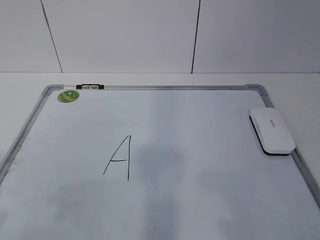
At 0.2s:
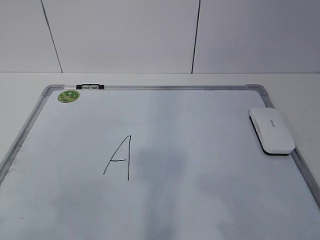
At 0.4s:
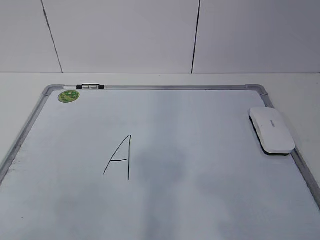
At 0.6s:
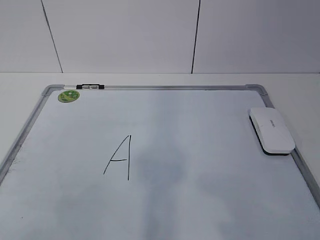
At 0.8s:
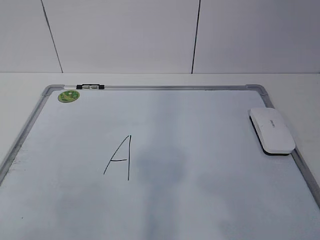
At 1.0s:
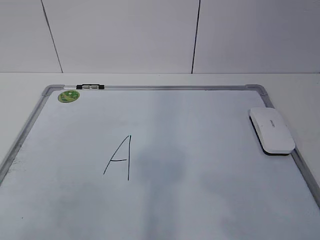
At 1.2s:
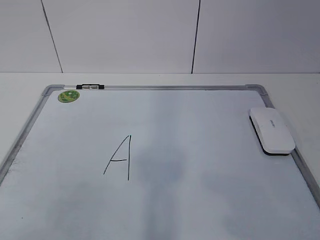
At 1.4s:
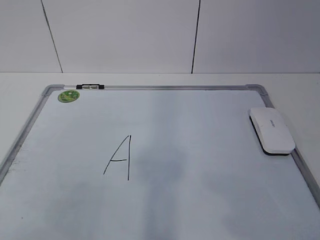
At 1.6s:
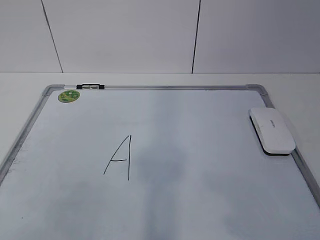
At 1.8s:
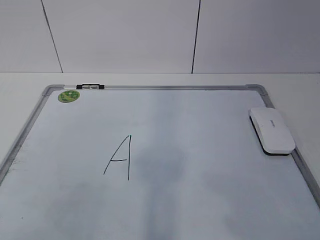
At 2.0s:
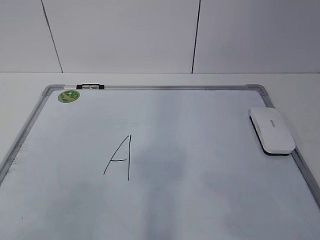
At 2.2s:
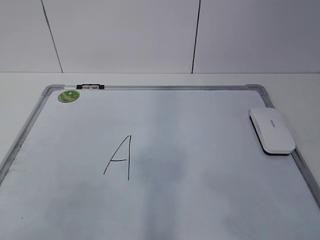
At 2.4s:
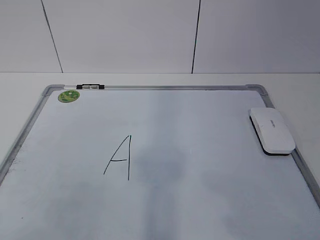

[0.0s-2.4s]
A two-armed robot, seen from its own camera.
Task of the whole recording: pick up the eraser on the blackboard and erase the letter "a".
1.2s to 2.4s: Both grippers stay put.

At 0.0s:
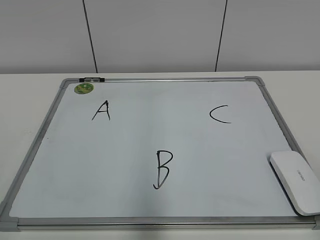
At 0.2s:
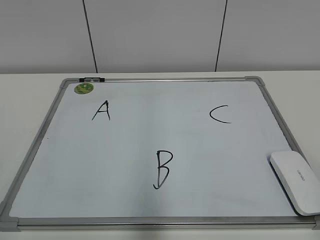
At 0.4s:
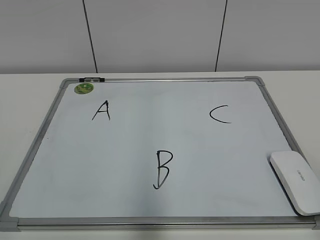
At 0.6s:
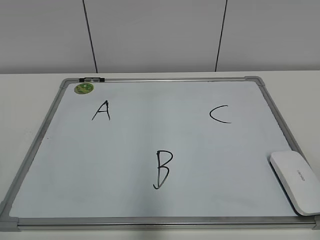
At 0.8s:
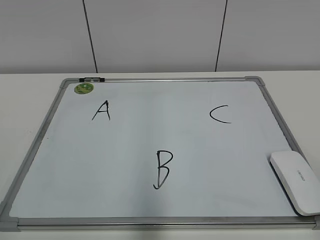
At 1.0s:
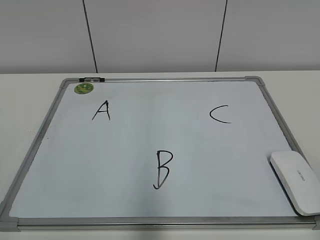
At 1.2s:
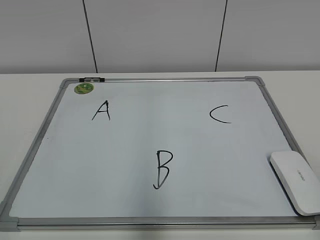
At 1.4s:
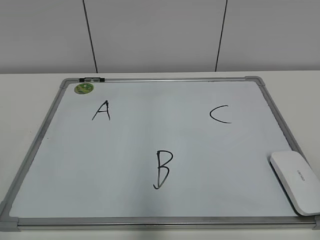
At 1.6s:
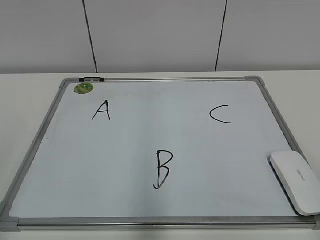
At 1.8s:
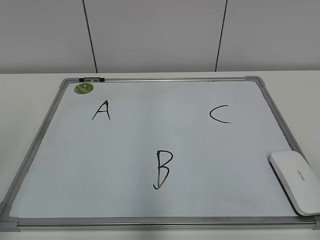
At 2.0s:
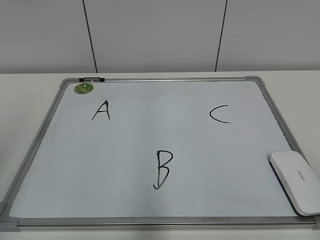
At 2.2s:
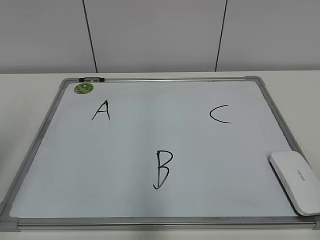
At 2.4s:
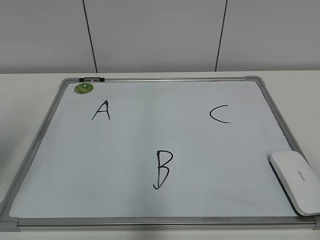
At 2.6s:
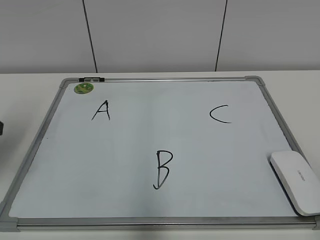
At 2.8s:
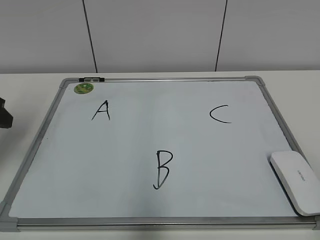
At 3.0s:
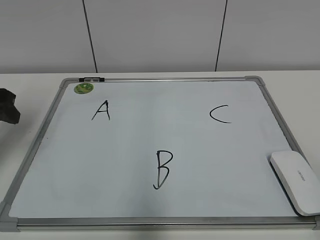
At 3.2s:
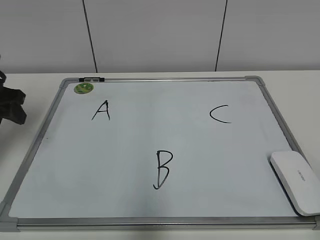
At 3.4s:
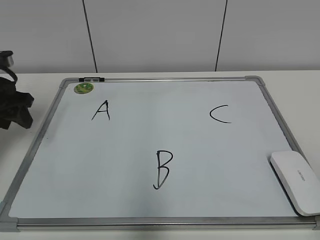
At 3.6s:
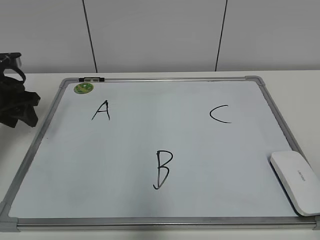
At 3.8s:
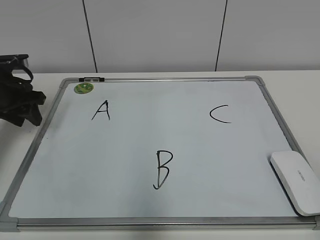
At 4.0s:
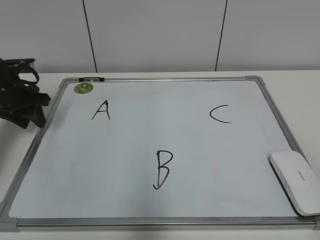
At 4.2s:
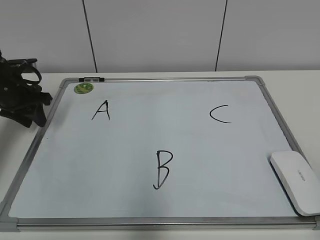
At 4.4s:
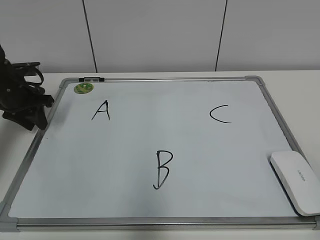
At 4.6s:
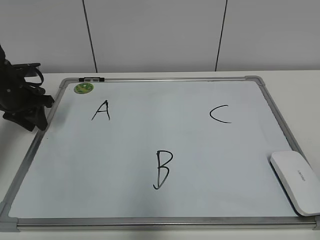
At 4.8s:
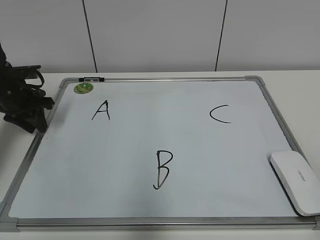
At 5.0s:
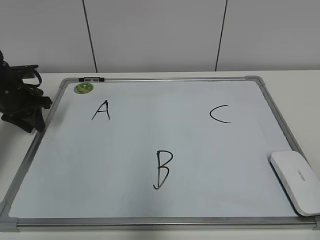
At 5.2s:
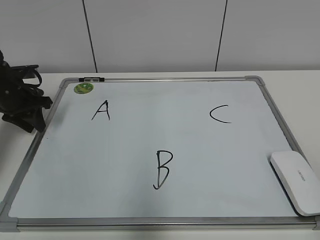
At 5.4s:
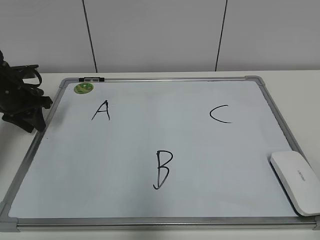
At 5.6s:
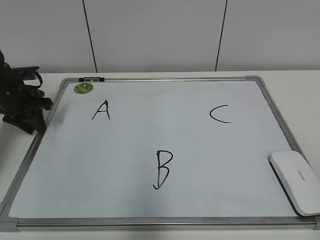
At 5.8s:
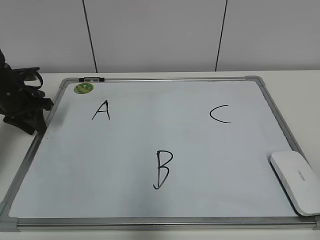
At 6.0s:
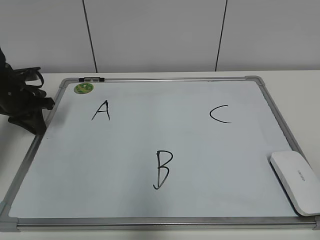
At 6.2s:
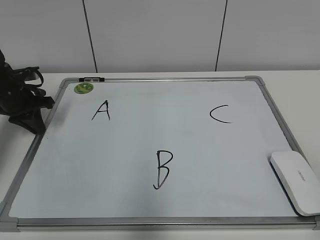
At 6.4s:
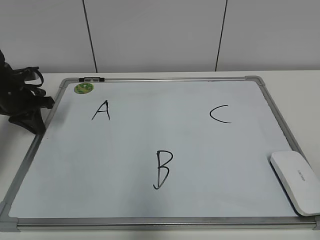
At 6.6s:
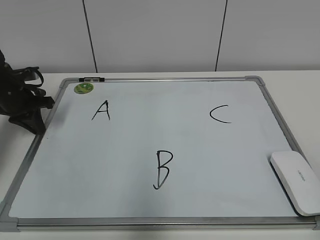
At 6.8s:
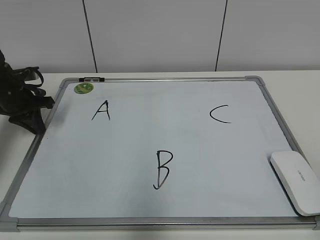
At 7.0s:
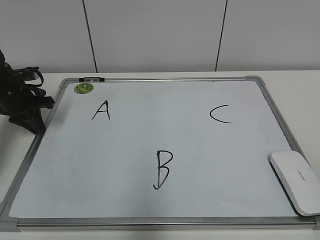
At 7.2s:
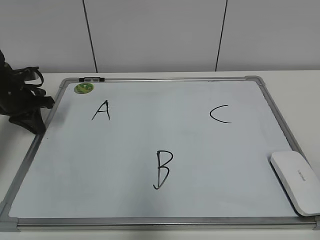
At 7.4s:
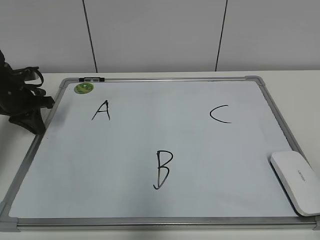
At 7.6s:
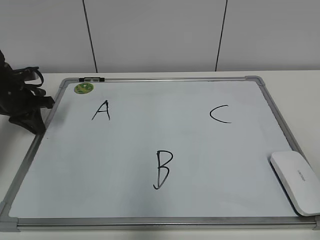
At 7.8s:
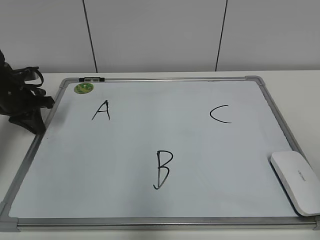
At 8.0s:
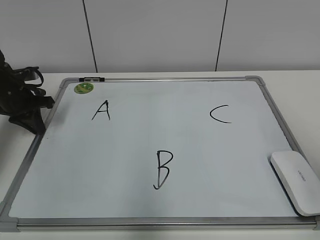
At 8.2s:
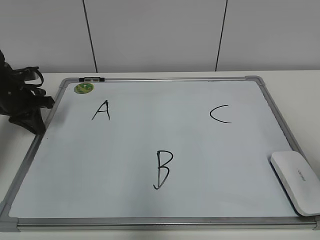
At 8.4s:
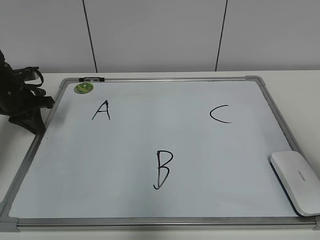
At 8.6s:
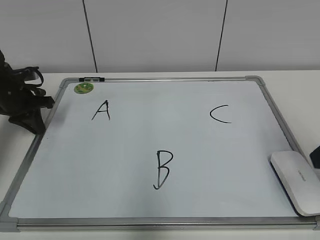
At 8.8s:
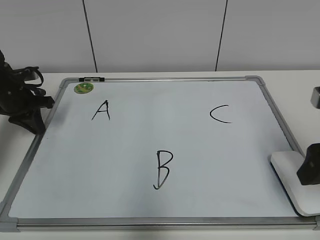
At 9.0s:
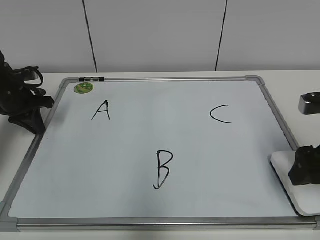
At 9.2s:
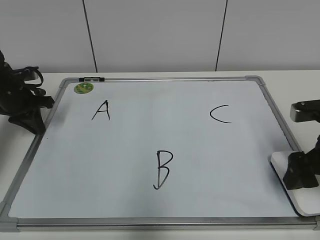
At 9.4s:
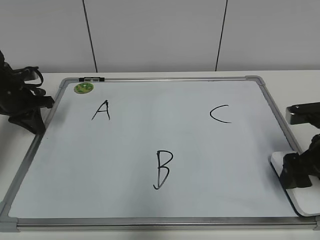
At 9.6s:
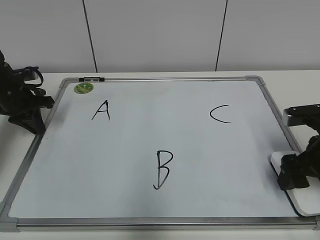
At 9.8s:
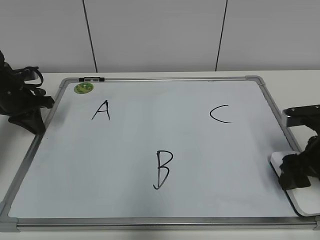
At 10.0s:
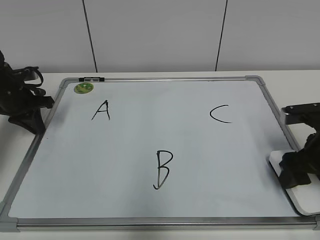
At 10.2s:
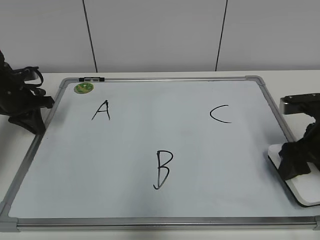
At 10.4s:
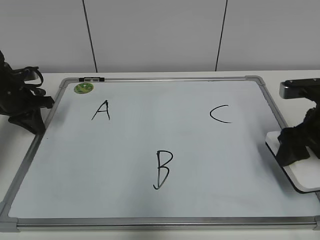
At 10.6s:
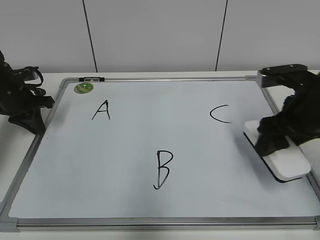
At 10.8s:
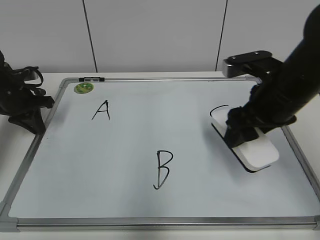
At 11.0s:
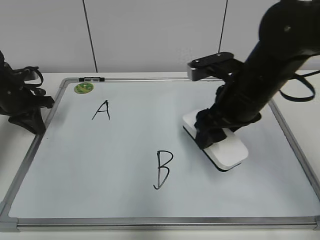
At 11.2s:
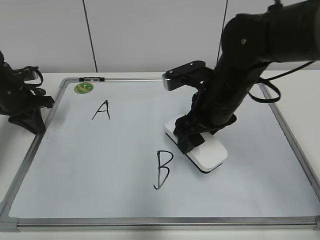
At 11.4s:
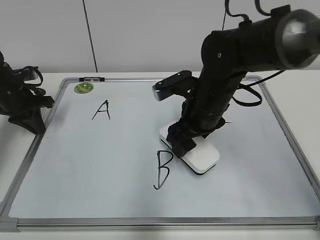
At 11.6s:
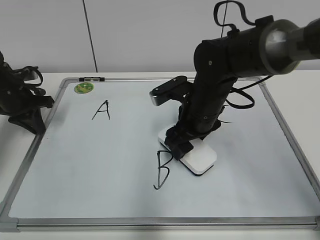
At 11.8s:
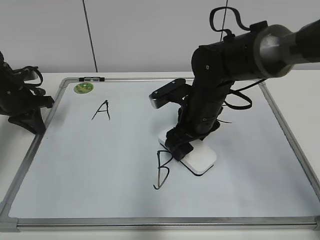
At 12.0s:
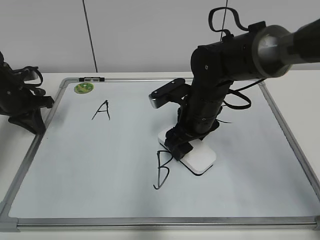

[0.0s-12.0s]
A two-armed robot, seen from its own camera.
Task of the whole recording: pick up the eraser on the blackboard and erase the letter "B".
Step, 0.0s to 6.0s: Hold the drawing board steady with your left hand.
Step, 6.2s to 9.8s: Grab the eraser with your right hand.
1.6s to 3.0s: The left gripper is displaced forward by some 30 cm.
3.0s to 4.4s: The left gripper is displaced forward and downward by some 15 cm, and closes its fingers.
4.4s to 6.0s: There are only small adjustments of the grippers.
6.0s to 7.6s: Both grippers stay about where they are.
7.6s to 9.0s: The right gripper moves forward, approximately 25 cm, and opens.
9.0s to 10.4s: The right gripper is displaced forward by some 5 cm, and closes its fingers.
10.4s to 12.0s: The right gripper moves to the left, some 20 cm.

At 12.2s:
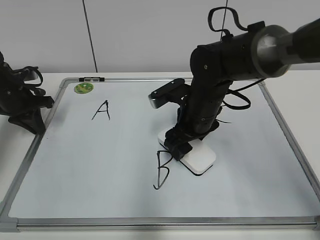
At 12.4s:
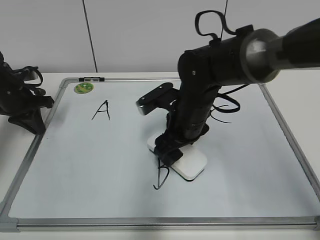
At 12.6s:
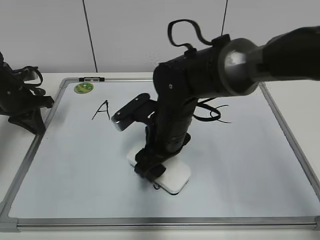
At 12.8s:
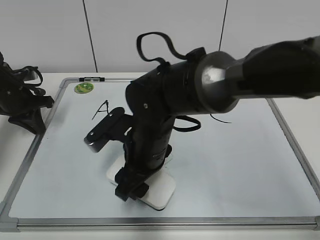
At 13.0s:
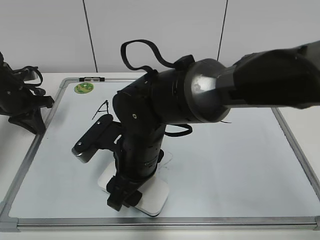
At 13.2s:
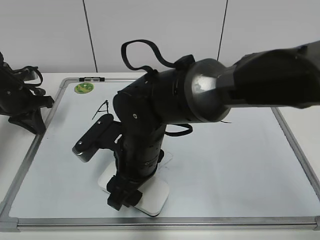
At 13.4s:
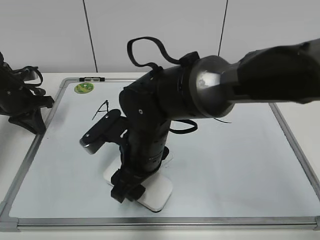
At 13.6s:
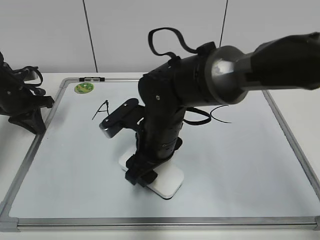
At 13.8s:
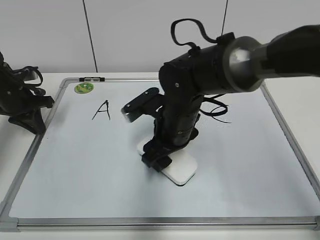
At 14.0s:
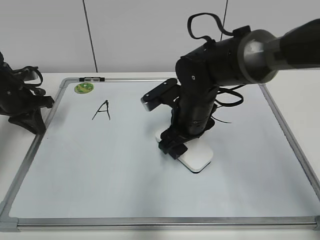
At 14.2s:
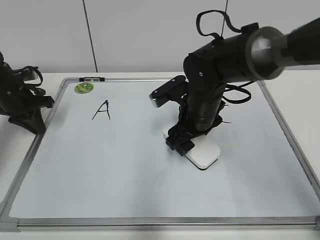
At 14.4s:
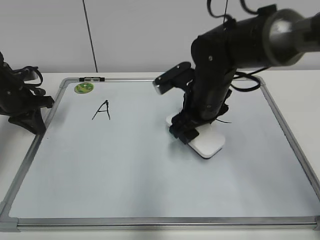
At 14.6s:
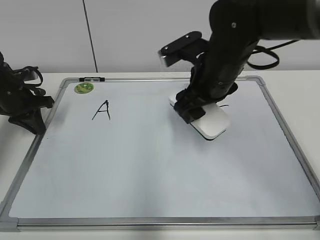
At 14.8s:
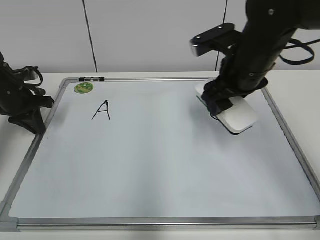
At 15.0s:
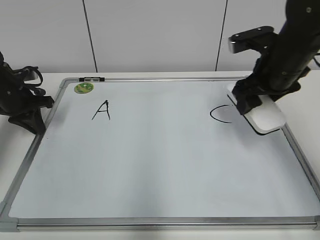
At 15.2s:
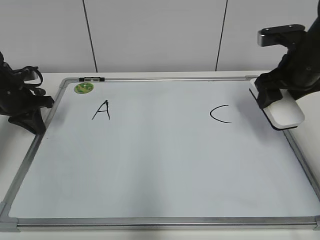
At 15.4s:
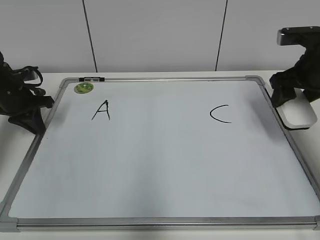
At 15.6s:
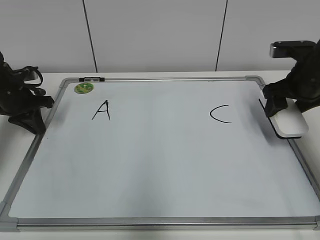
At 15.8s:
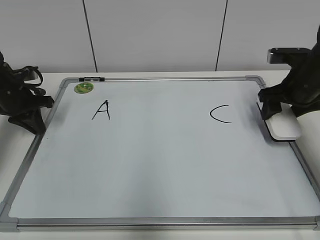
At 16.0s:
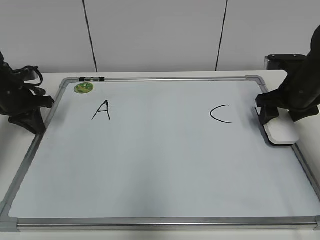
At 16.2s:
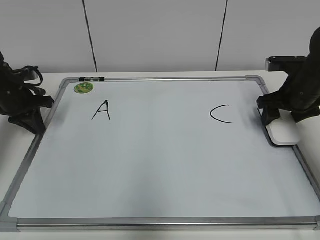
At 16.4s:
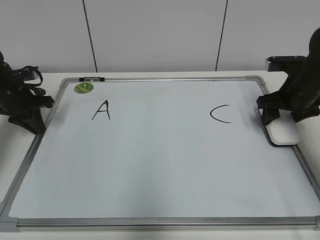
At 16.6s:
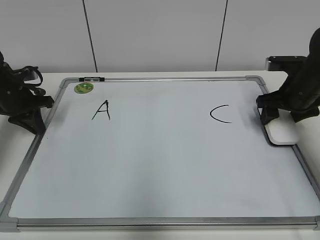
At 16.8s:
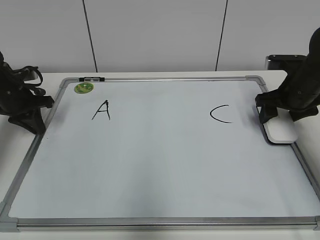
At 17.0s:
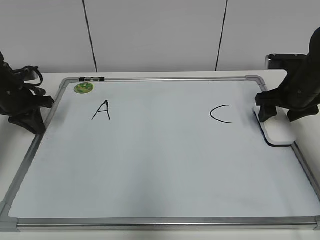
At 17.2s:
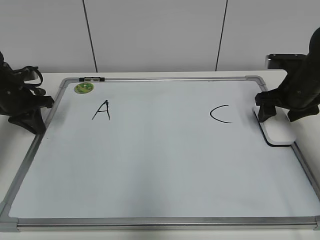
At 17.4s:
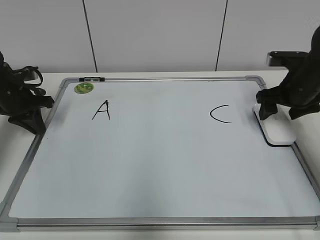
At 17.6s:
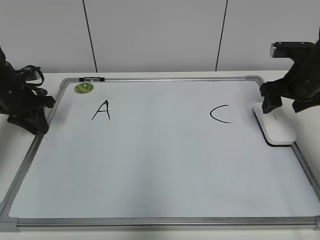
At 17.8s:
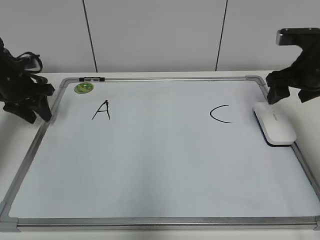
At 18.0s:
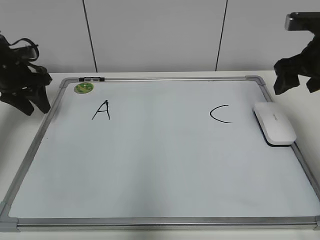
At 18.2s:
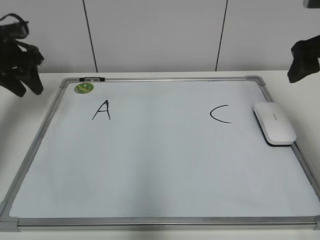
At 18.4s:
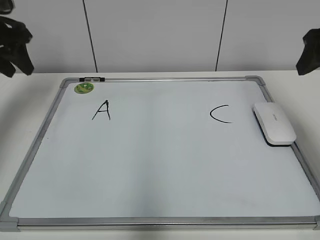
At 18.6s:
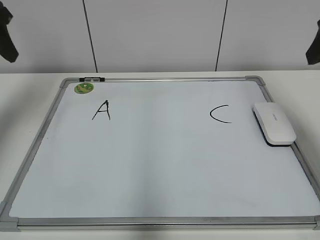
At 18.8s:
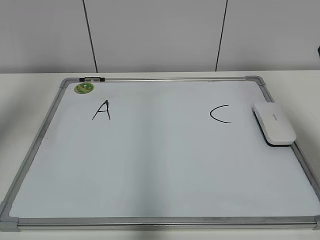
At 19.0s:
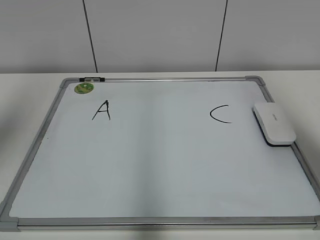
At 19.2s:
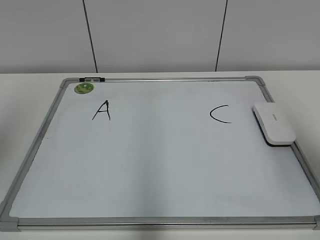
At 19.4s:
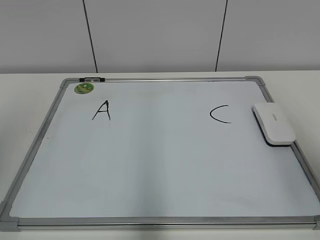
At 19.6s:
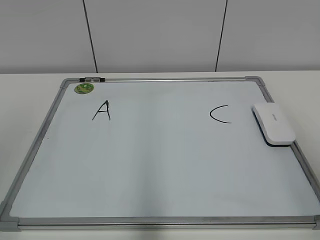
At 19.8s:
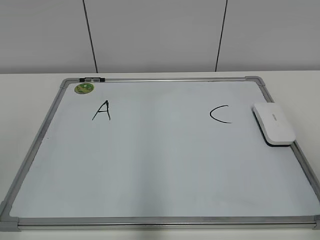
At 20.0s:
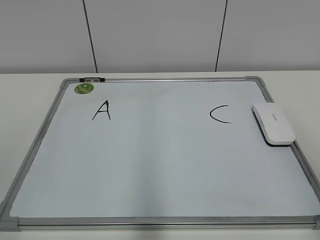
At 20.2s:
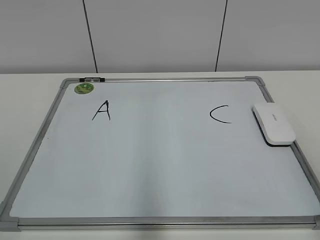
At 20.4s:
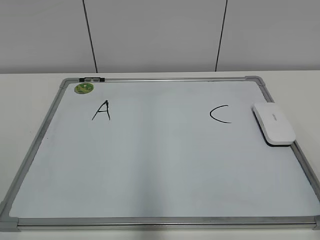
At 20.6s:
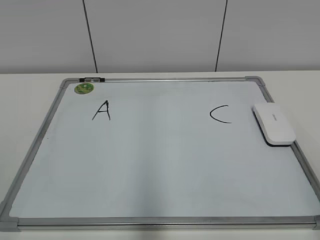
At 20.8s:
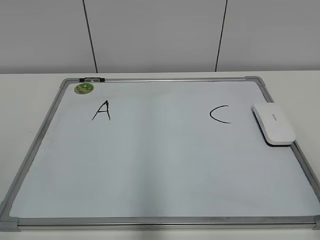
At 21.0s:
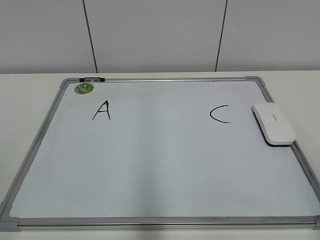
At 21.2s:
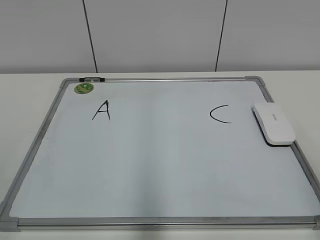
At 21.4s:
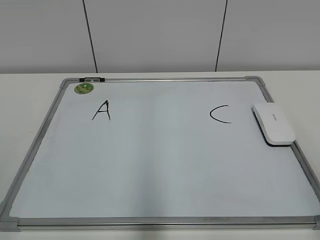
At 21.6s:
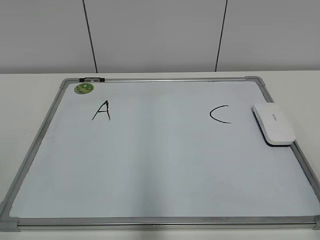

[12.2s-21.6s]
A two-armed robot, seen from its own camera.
Task of the whole recording: pick up the eraser on the blackboard and erase the letter "B".
Step, 14.2s to 17.2s: Put down the eraser with your right hand.
12.2s to 13.8s: The right gripper is displaced to the left by roughly 5 cm.
13.8s to 15.4s: The right gripper goes approximately 25 cm to the right.
15.4s to 17.0s: The right gripper is displaced downward by some 5 cm.
17.0s to 18.4s: The right gripper travels upward and backward by some 15 cm; the left gripper travels upward by approximately 15 cm, and opens its fingers.
18.4s to 20.0s: The grippers both shift backward by roughly 35 cm.
